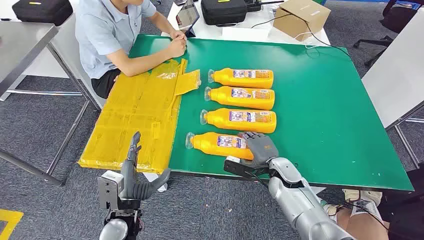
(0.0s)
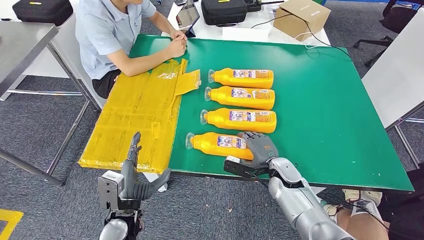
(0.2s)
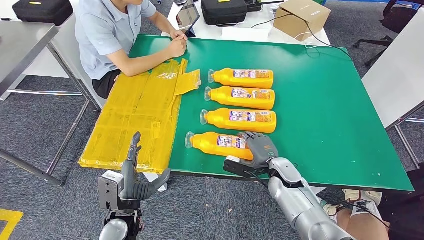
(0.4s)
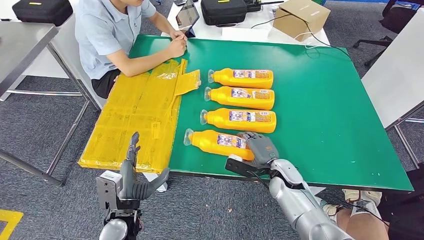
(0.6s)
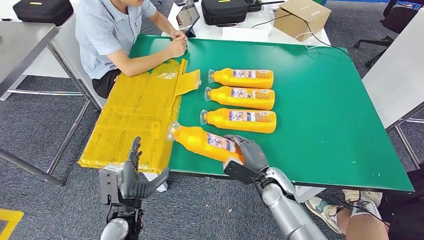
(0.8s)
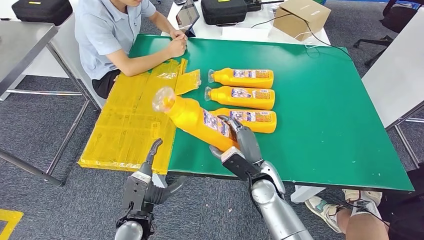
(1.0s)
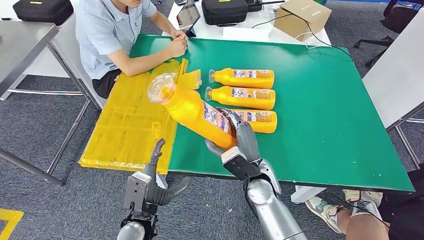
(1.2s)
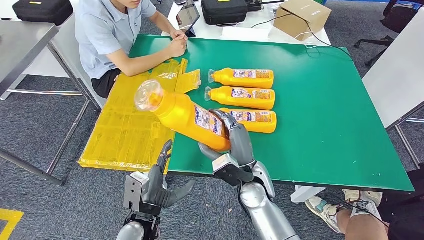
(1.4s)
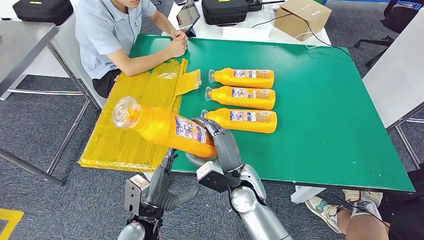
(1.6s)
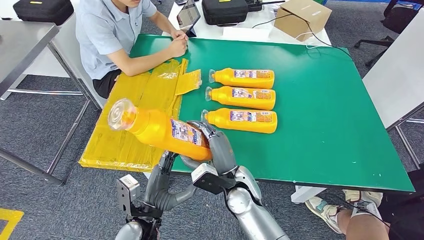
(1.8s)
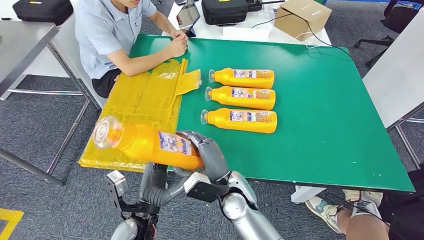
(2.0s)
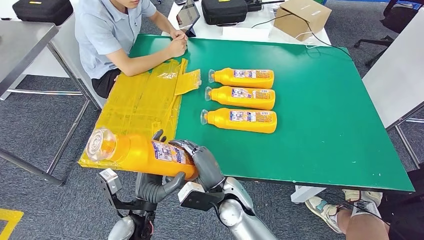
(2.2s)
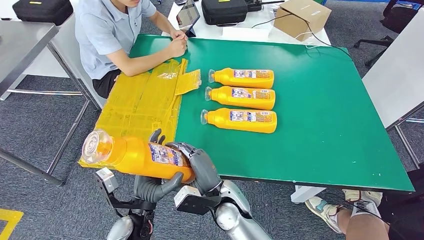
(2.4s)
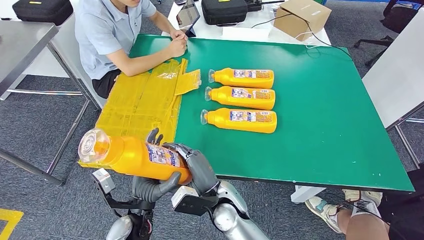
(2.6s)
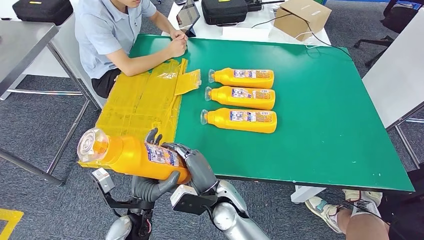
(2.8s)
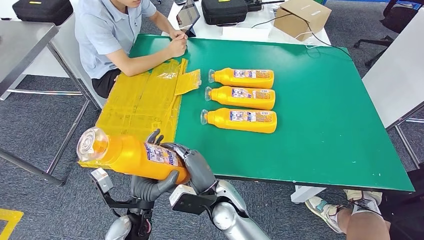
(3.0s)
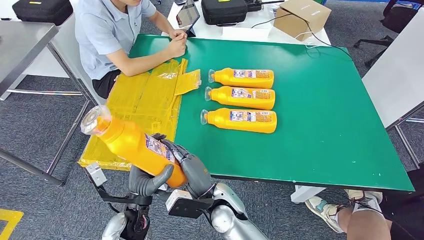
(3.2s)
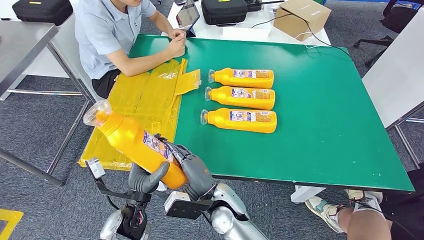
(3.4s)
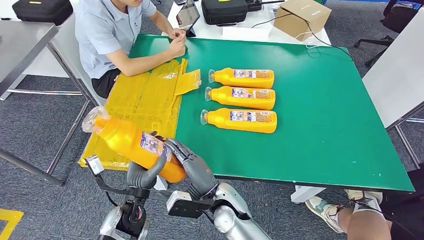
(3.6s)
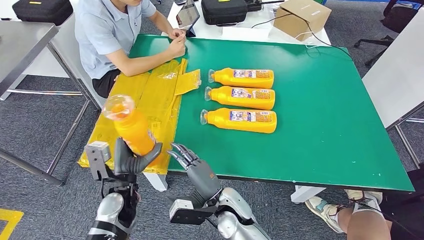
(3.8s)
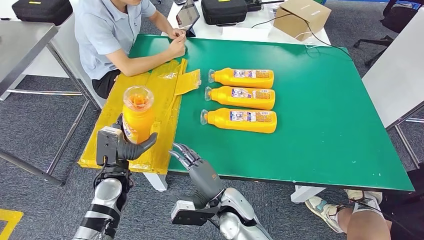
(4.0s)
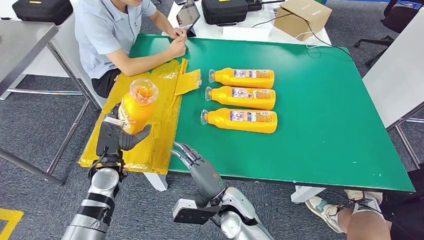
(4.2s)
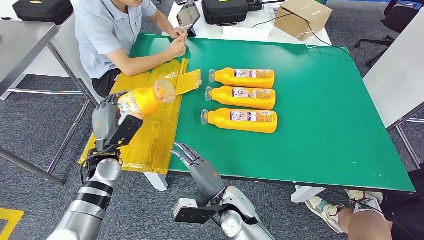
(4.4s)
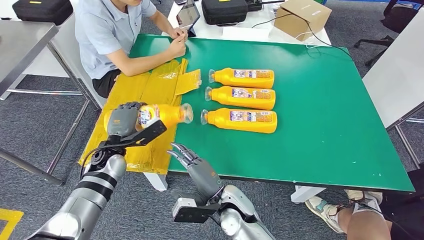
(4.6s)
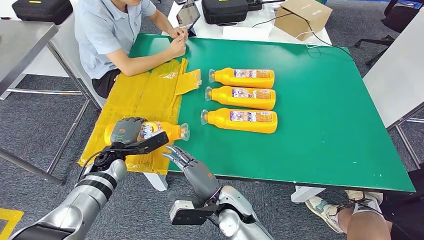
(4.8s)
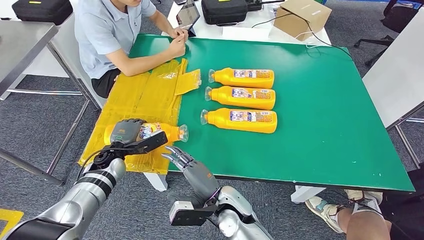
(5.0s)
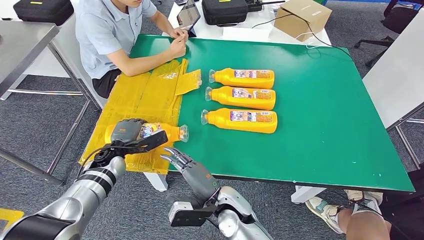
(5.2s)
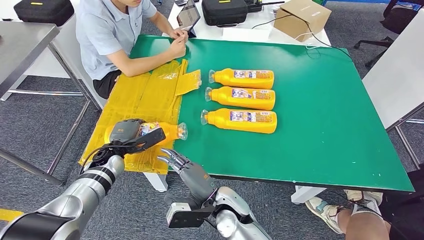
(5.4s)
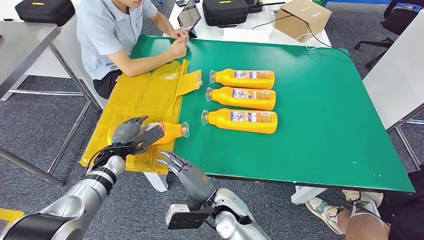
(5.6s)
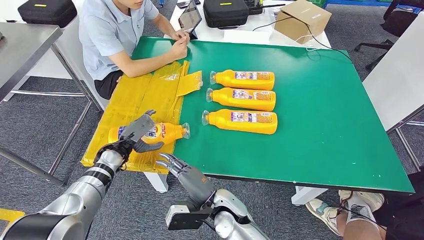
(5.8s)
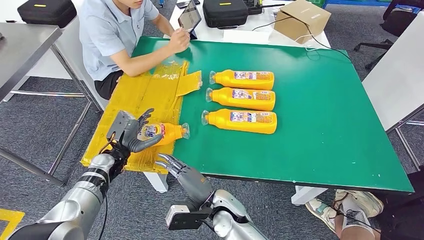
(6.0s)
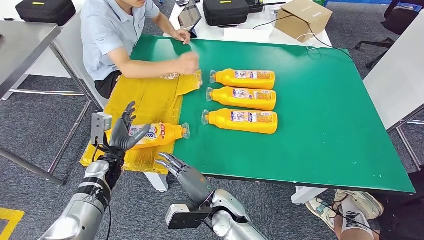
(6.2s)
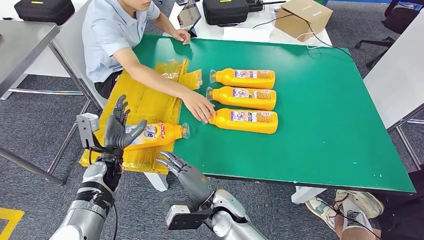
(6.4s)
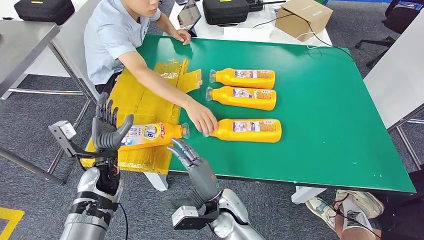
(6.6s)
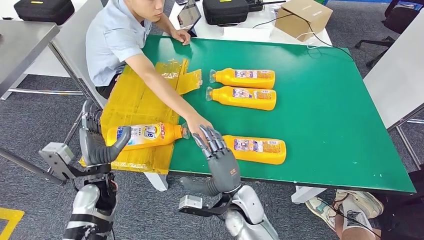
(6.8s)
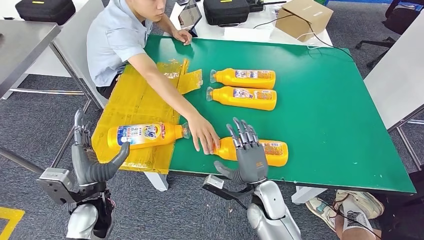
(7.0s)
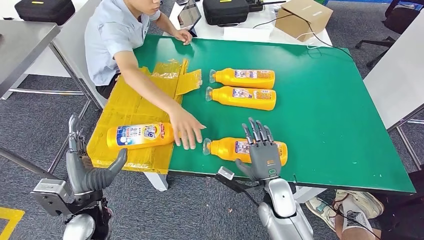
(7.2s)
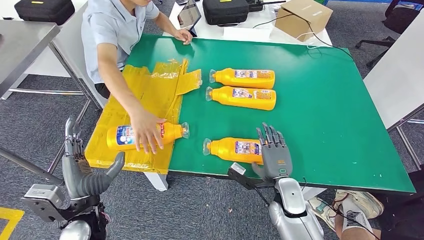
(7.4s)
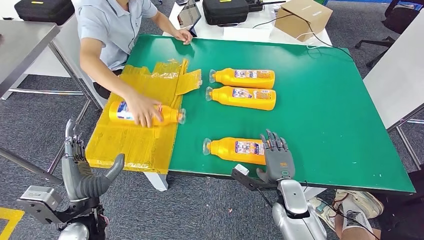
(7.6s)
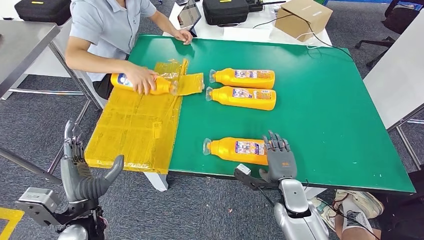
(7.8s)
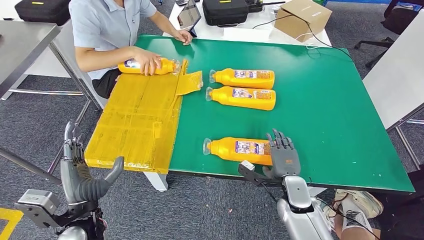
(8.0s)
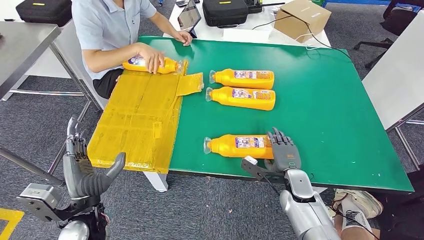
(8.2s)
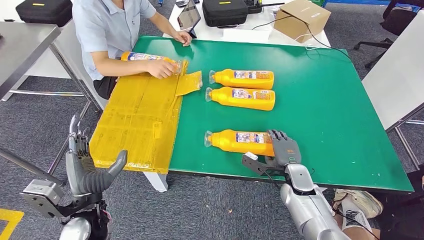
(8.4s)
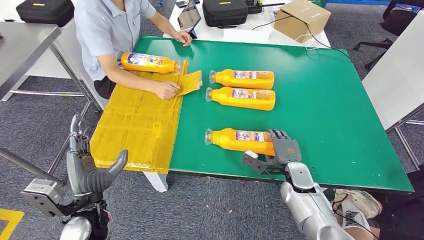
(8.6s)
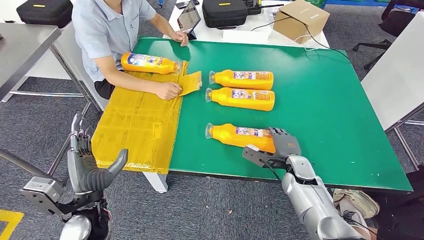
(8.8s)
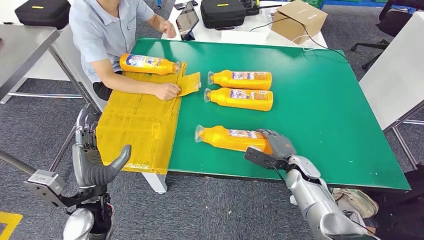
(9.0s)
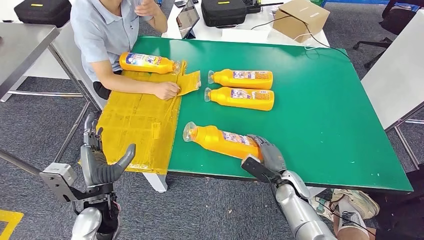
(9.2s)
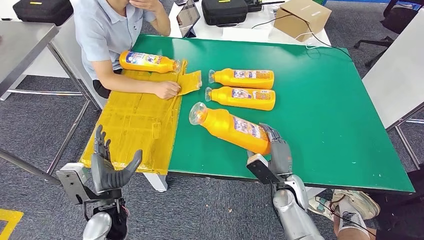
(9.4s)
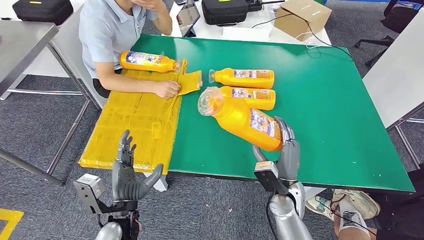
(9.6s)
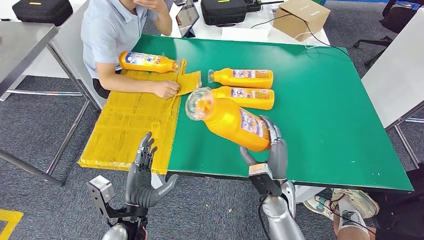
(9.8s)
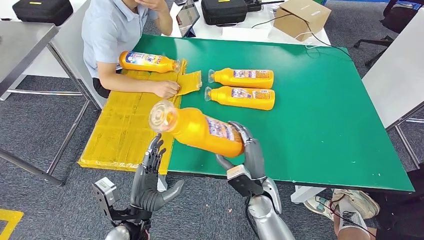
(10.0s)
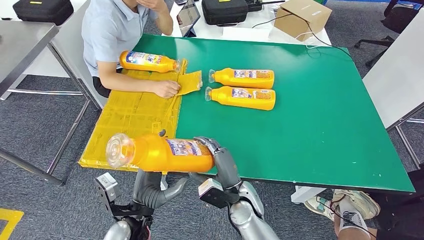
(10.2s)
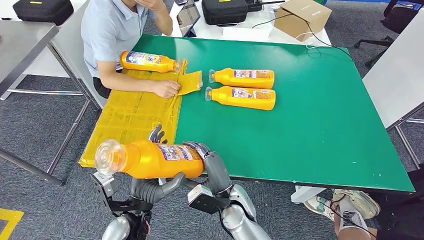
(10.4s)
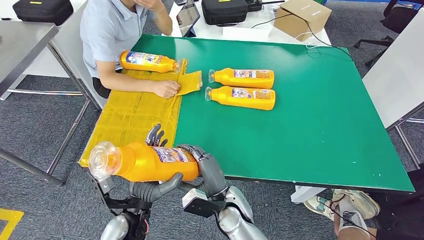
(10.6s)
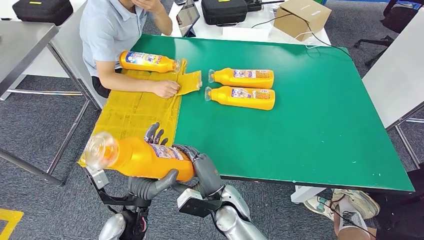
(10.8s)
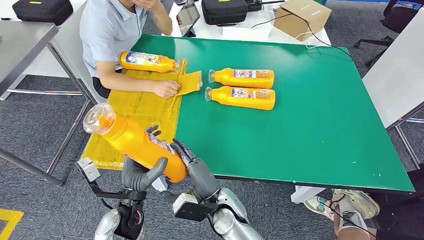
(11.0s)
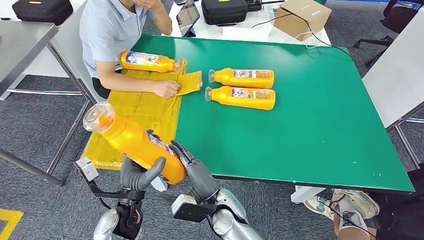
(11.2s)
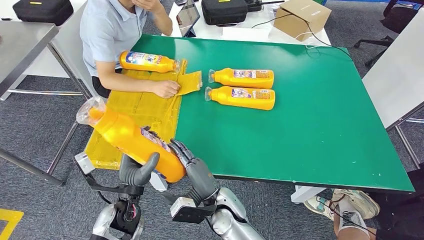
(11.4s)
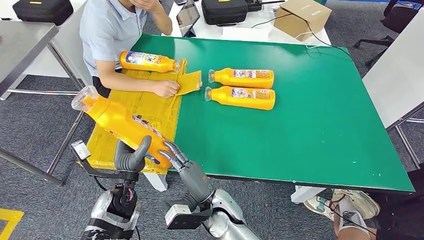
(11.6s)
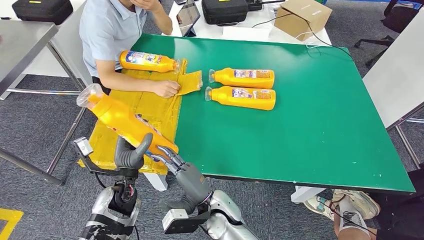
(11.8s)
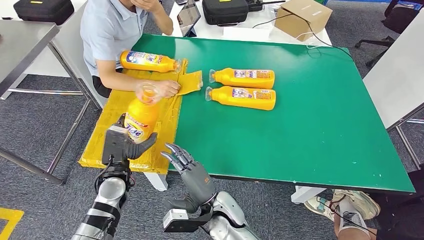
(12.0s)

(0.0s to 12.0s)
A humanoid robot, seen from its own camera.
Step, 0.0s - 2.8s: Take the fast-moving consumer goods bottle from the table.
Step, 3.0s - 7.6s: Flip the fast-moving consumer goods bottle to the front side.
Step, 7.8s - 11.4s: Pick up the fast-moving consumer goods bottle from the table.
1.6s - 3.0s: The right hand is displaced to the left by approximately 5 cm.
3.0s - 4.4s: The left hand travels forward and to the left by approximately 15 cm.
10.4s - 12.0s: The left hand goes about 10 cm forward and to the left.

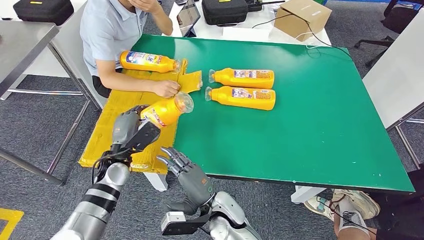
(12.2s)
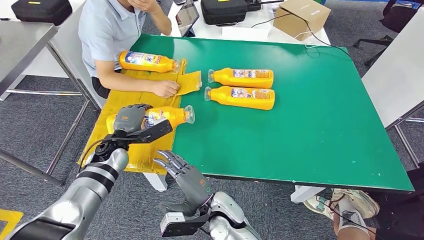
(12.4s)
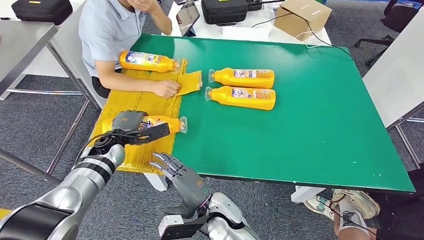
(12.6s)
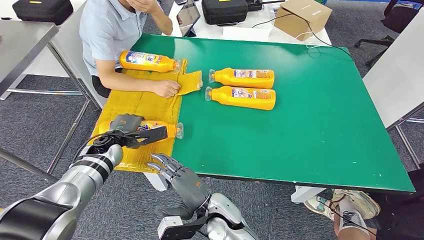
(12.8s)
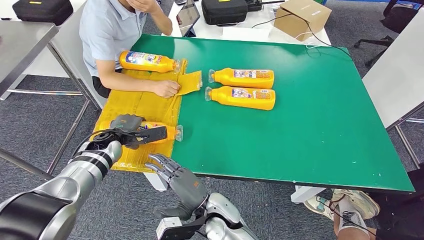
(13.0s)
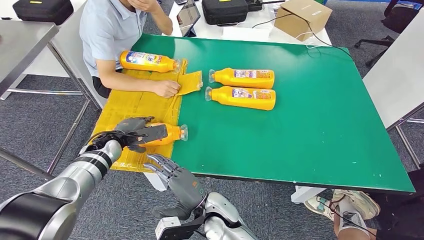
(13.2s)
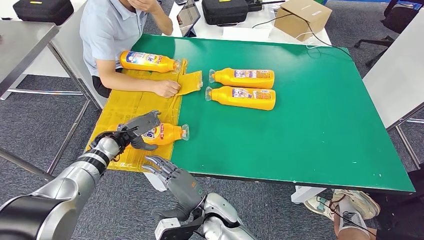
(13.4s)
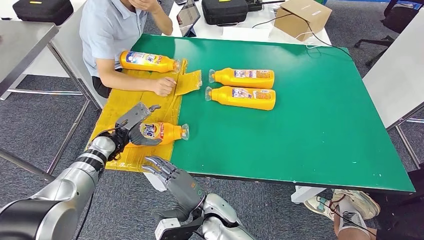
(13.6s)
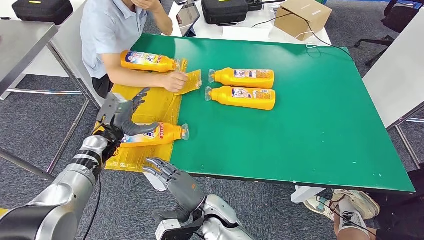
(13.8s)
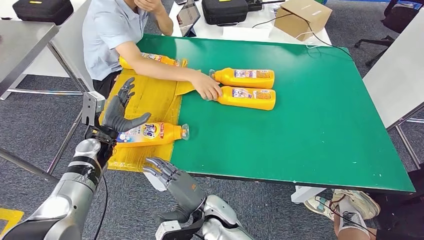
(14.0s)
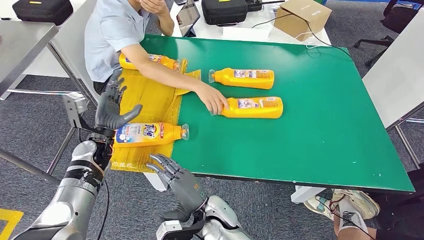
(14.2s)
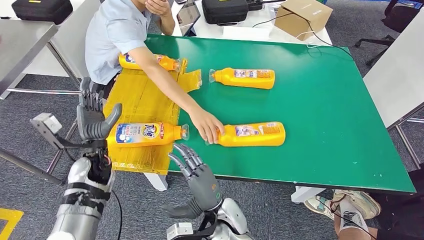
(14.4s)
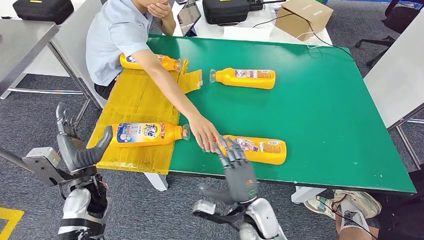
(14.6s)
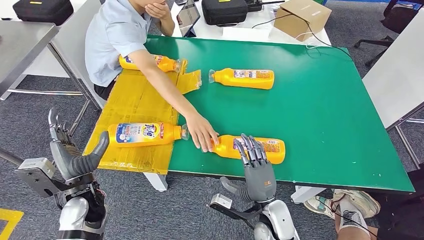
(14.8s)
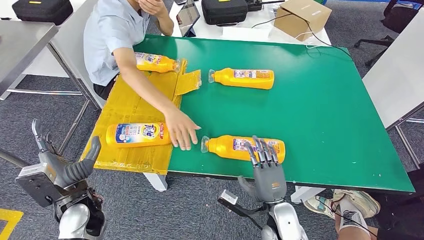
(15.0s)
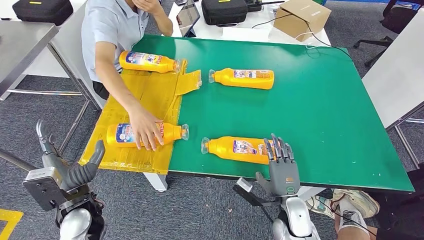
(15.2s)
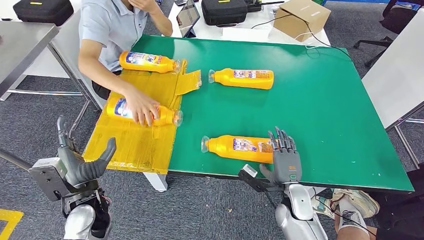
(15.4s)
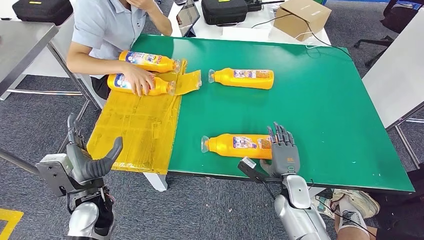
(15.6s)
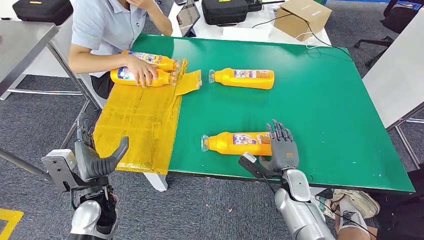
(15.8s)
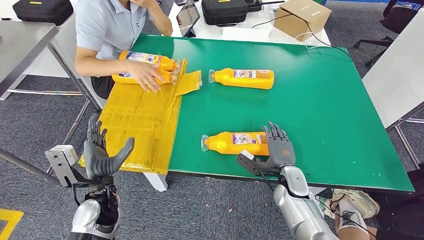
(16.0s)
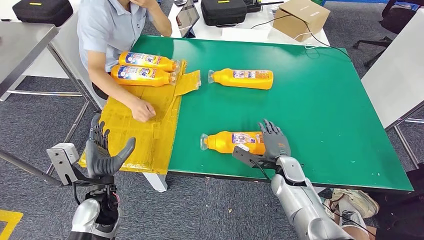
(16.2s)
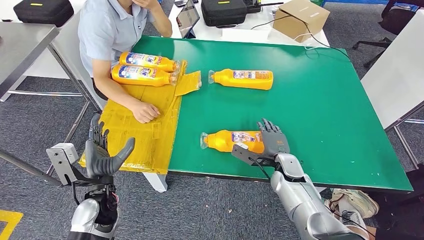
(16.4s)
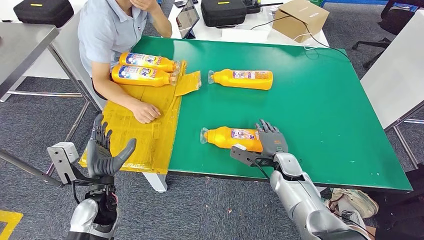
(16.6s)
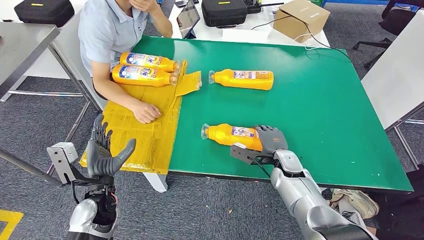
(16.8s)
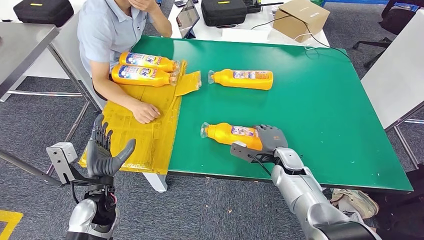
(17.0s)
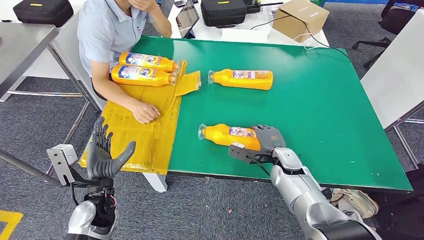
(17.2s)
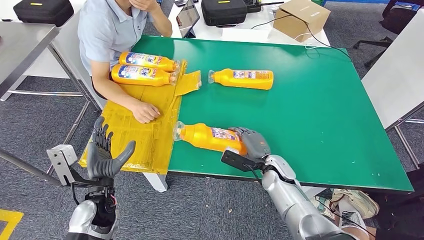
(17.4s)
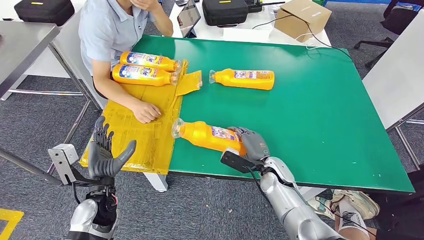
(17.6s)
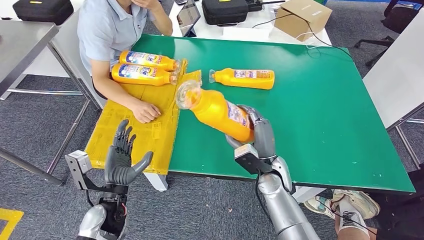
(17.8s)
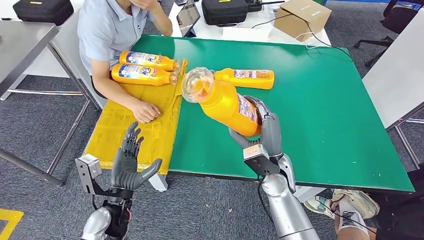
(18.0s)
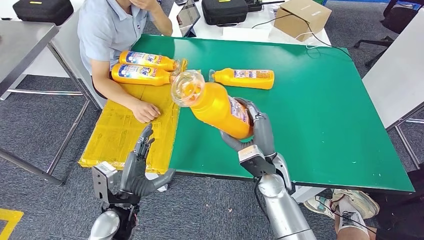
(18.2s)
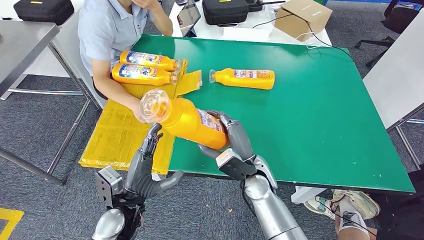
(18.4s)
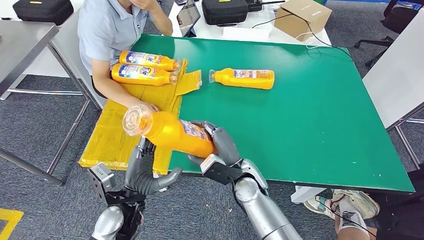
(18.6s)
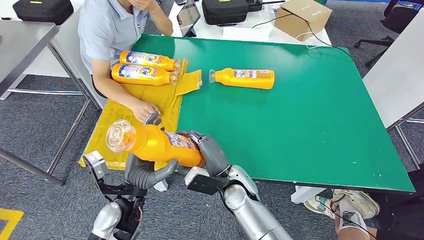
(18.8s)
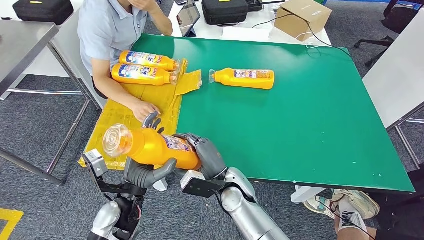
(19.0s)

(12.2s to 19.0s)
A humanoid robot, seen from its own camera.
Step, 12.2s - 15.2s: Flip the fast-moving consumer goods bottle to the front side.
12.2s - 13.6s: The left hand moves forward and to the left, some 10 cm.
17.6s - 19.0s: The right hand is displaced to the left and backward by some 15 cm, while the left hand heads to the right, covering about 5 cm.
